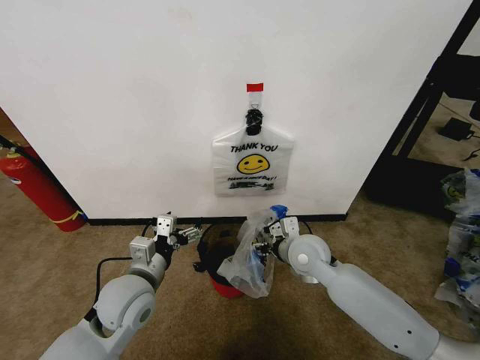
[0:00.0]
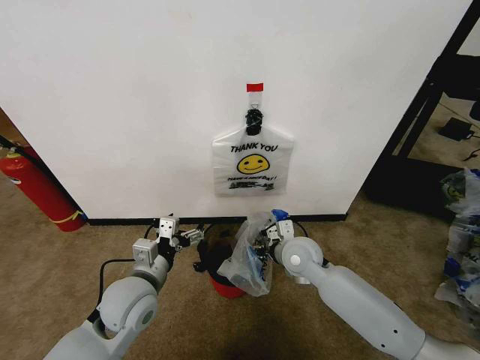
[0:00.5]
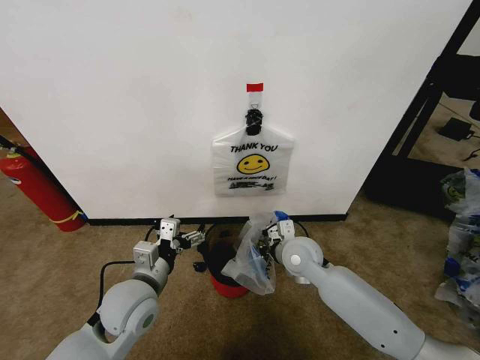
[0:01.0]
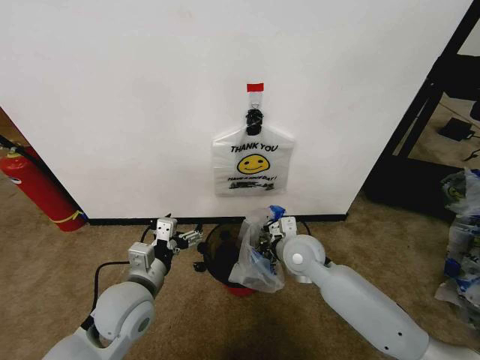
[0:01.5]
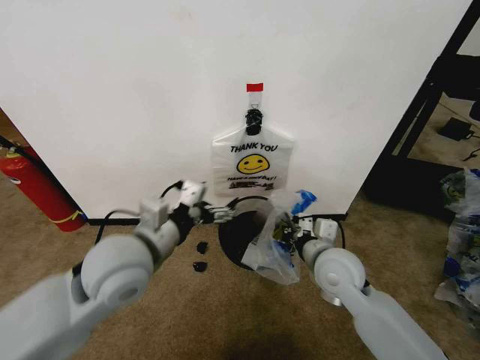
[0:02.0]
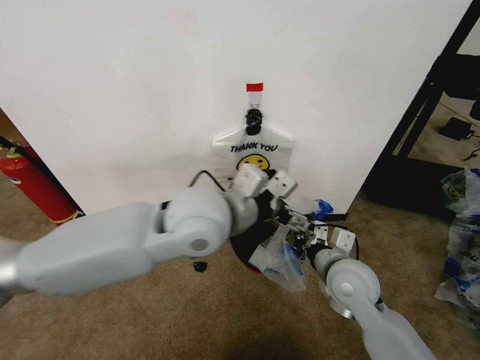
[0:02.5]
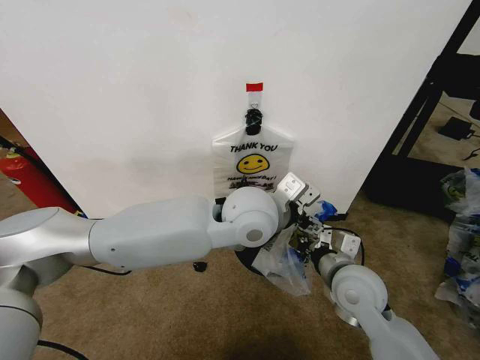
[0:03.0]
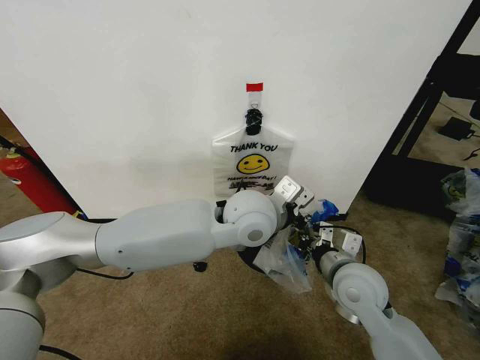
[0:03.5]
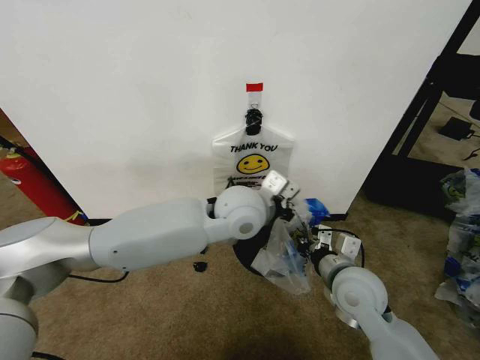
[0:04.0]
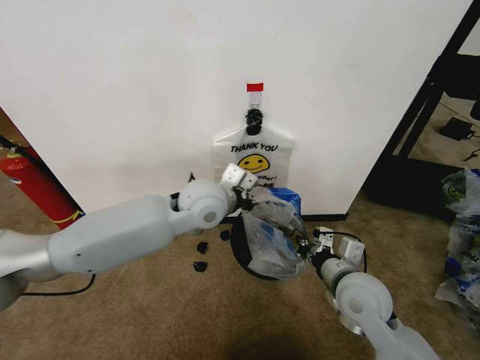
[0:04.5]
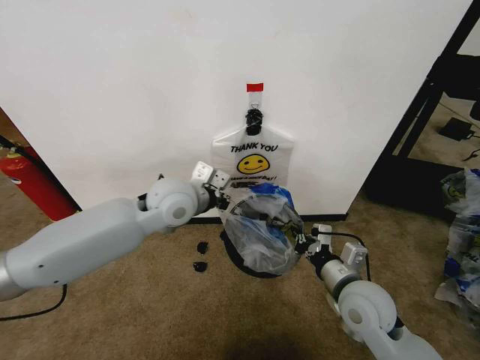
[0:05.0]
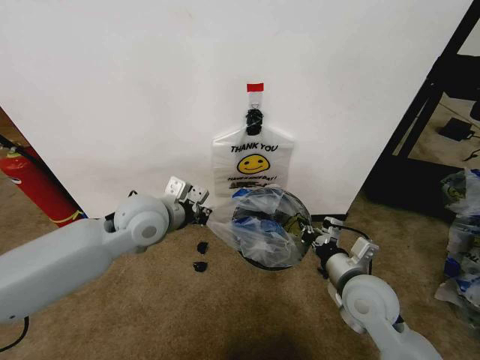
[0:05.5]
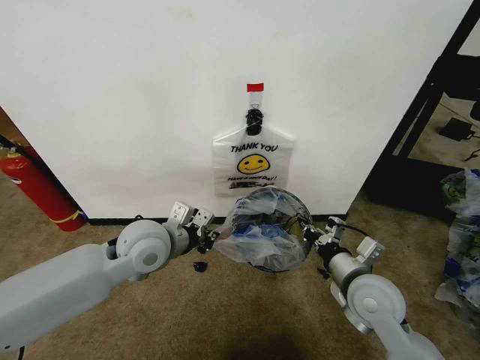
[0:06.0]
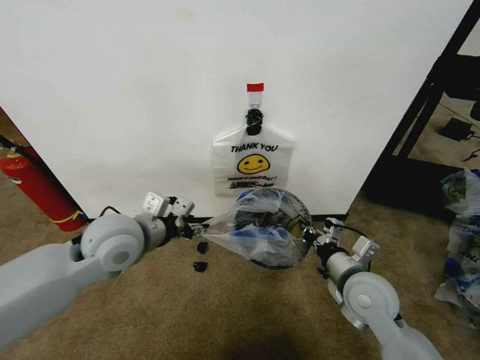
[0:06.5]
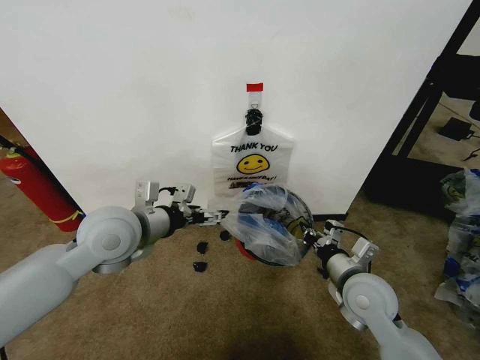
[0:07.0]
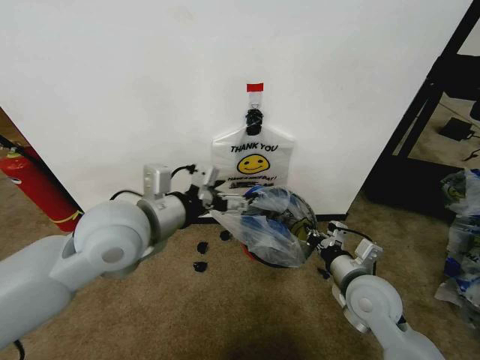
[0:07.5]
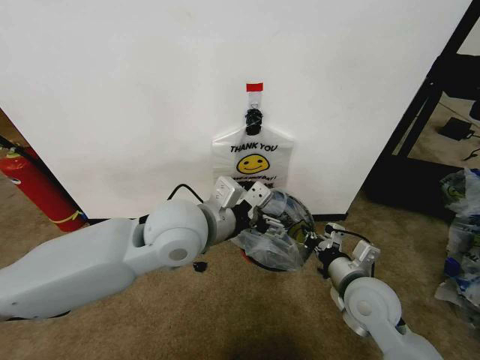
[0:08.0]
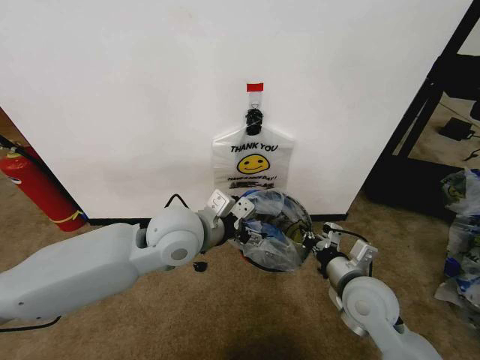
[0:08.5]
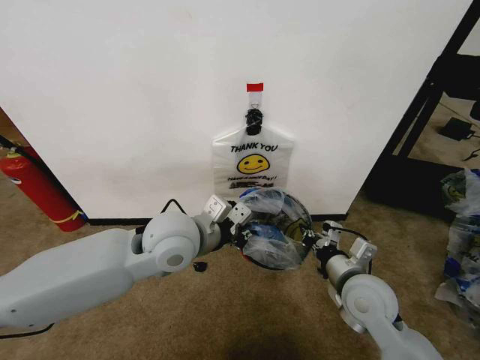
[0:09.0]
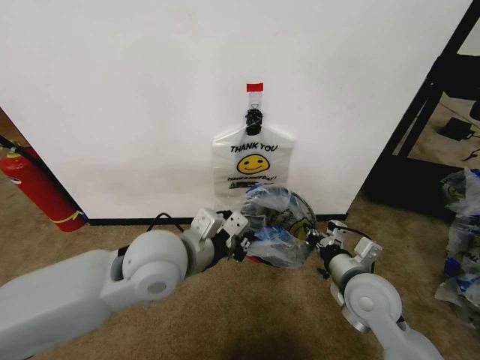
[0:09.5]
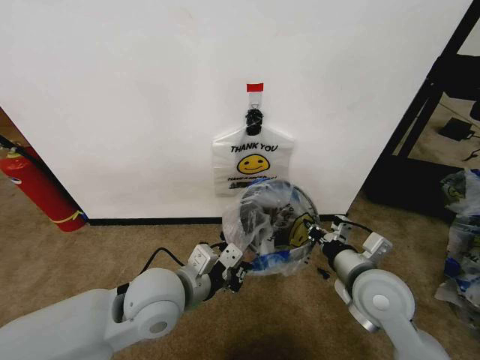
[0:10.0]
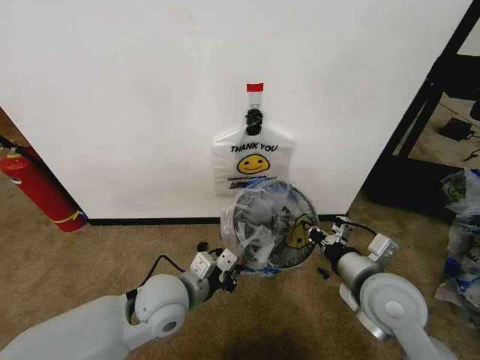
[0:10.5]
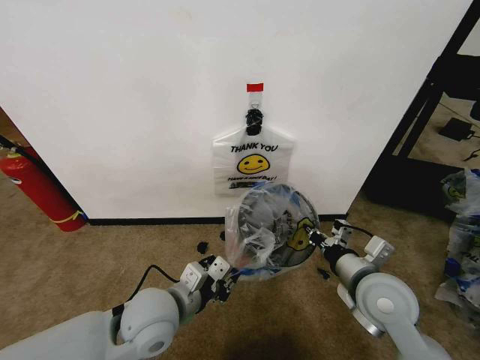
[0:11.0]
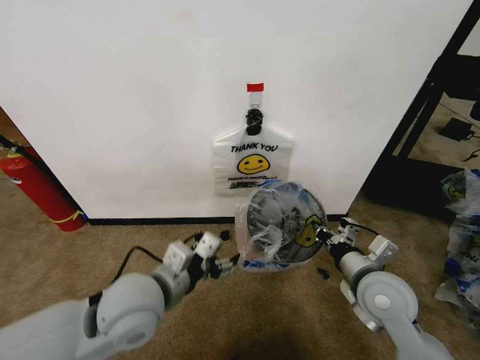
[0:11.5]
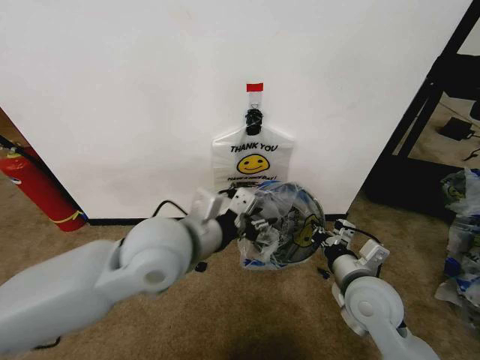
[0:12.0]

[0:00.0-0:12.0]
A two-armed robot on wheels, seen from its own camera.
Task of the whole recording: Pick up the garbage bag from the wall and place it over the trash bin.
0:00.0 to 0:02.0: The right gripper goes about 5 cm backward, and closes up. The left gripper heads upward, covering approximately 10 cm.
0:02.0 to 0:04.0: The left gripper shifts roughly 20 cm to the right and forward, and closes its fingers.
0:04.0 to 0:06.0: The left gripper shifts approximately 20 cm to the left.
0:06.0 to 0:08.0: The left gripper goes some 10 cm upward and to the right, and opens up.
0:08.0 to 0:10.0: The left gripper goes approximately 10 cm downward and backward, and closes up.
0:10.0 to 0:12.0: The left gripper goes about 10 cm upward, and opens.

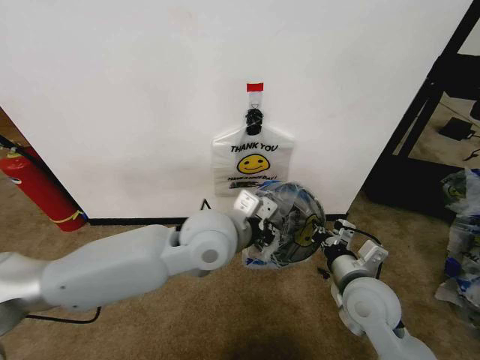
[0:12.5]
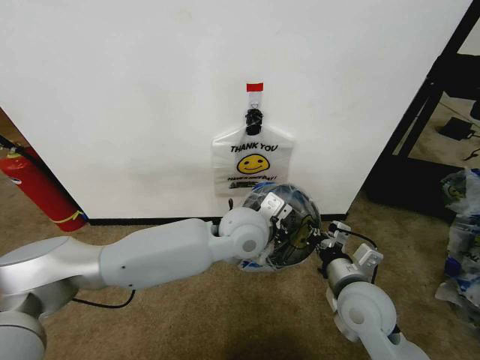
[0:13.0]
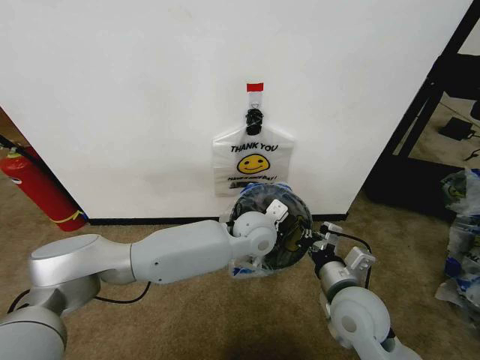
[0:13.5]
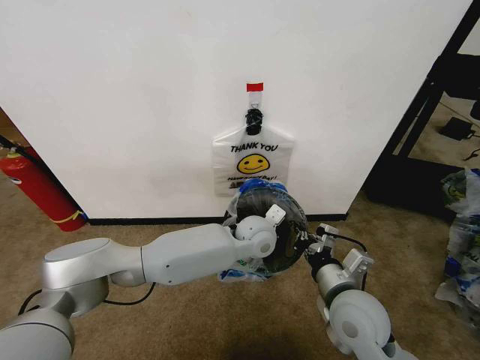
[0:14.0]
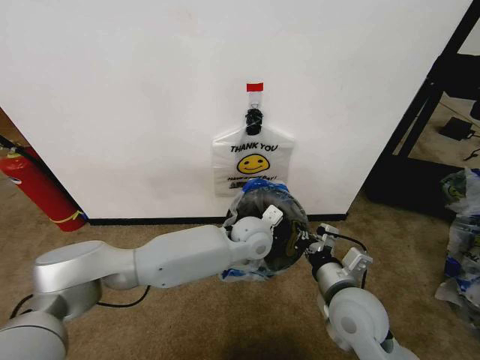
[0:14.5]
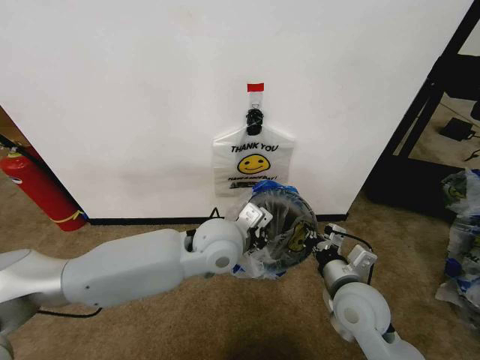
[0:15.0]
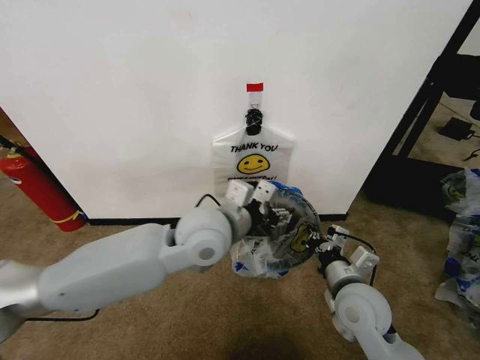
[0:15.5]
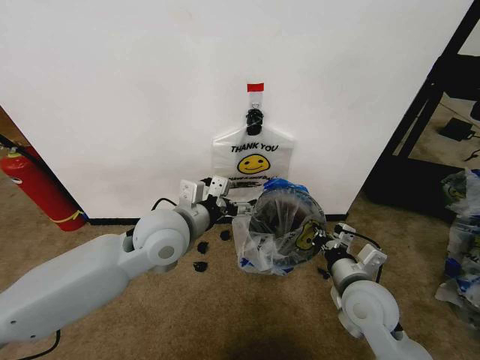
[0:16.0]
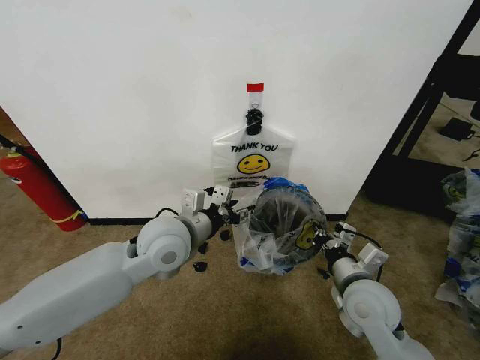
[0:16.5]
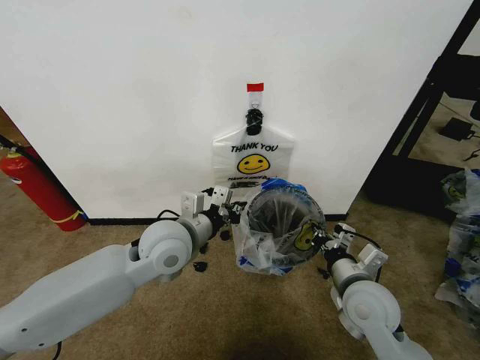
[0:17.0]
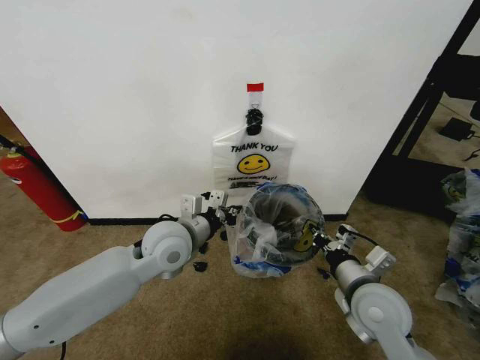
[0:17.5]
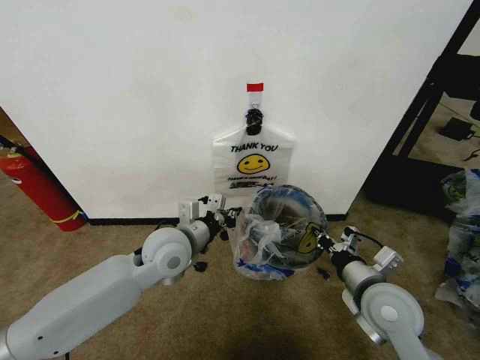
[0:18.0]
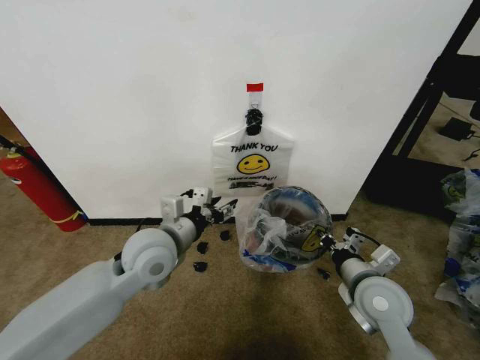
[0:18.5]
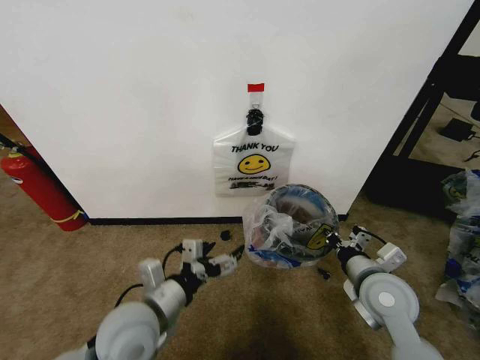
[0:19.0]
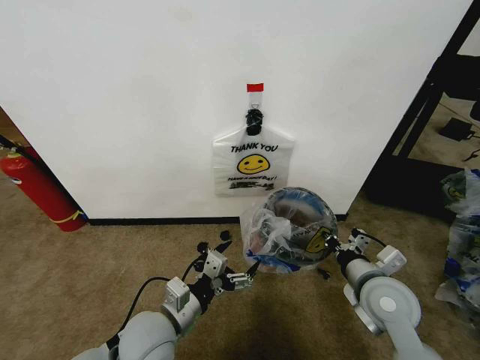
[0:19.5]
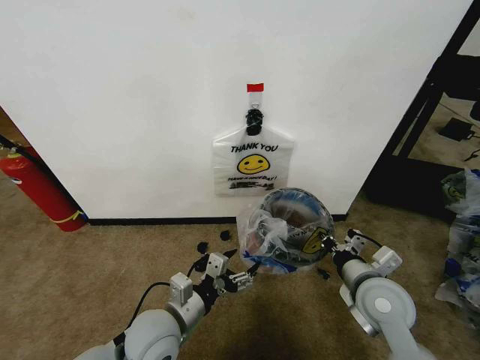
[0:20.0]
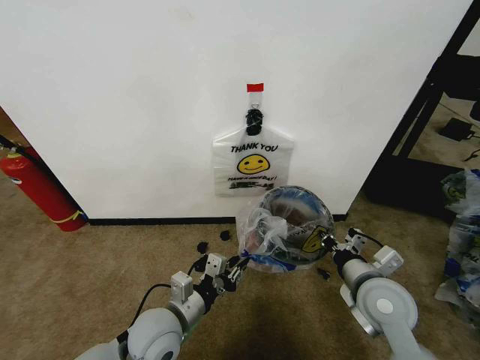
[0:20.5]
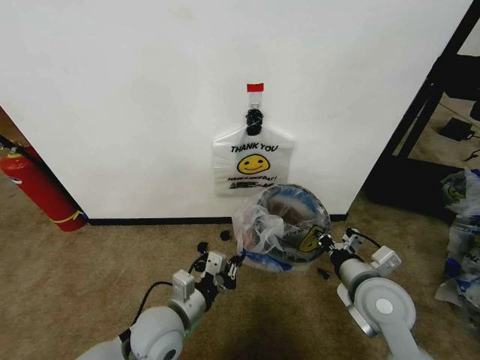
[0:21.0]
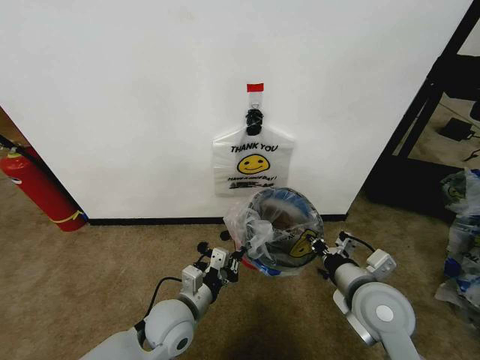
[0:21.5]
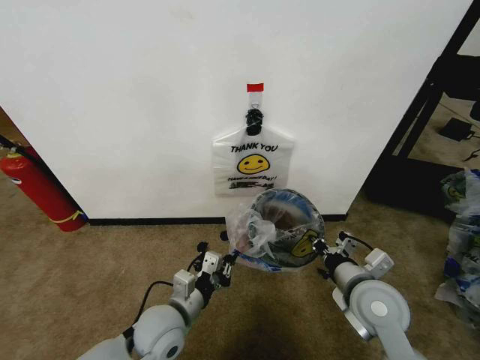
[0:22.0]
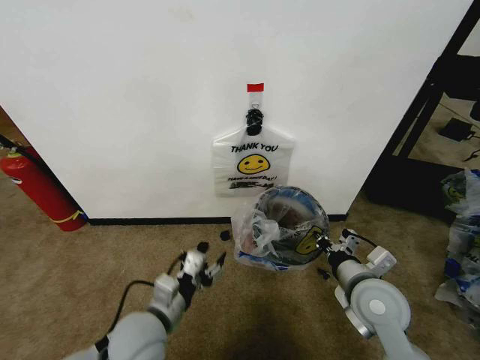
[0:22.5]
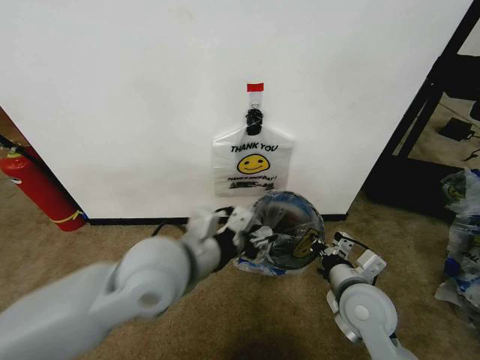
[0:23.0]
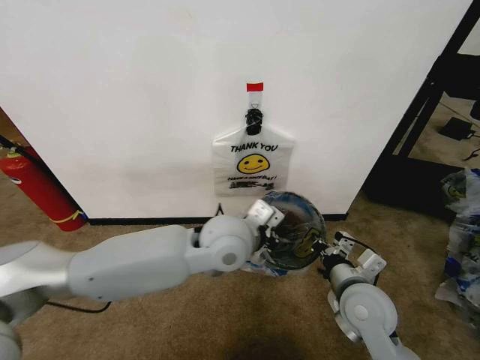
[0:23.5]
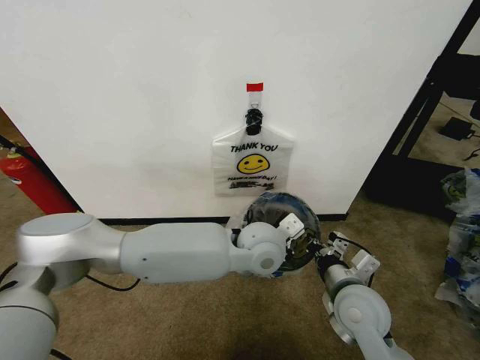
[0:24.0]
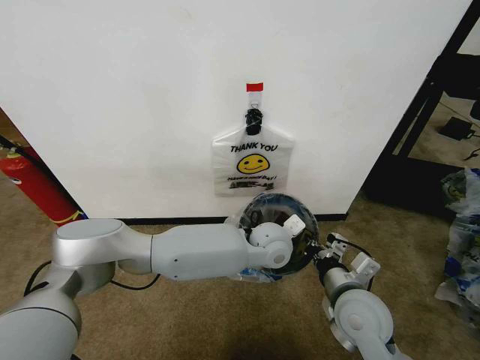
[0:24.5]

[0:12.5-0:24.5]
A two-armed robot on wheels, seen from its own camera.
Task of the whole recording: Pick up the garbage bag from the wall and place it over the trash bin.
0:12.5 to 0:14.5: The left gripper is displaced downward, forward and to the right by some 15 cm.
0:14.5 to 0:16.5: The left gripper heads to the left, upward and backward, covering roughly 20 cm, and opens its fingers.
0:16.5 to 0:18.5: The left gripper closes, then reopens.
0:18.5 to 0:20.5: The left gripper travels downward and backward by about 15 cm, and opens, then closes again.
0:20.5 to 0:22.5: The left gripper opens.
0:22.5 to 0:24.5: The left gripper goes roughly 30 cm to the right and forward, and closes up.

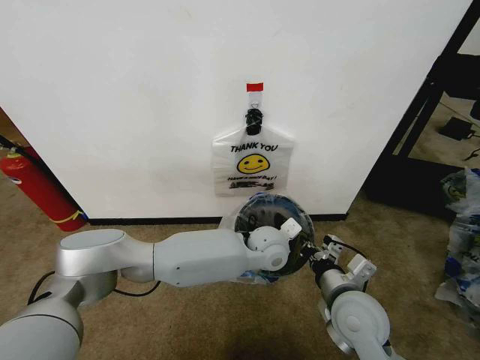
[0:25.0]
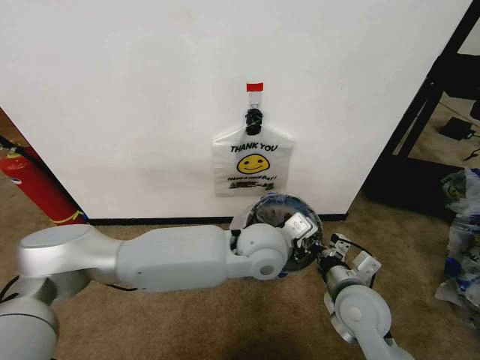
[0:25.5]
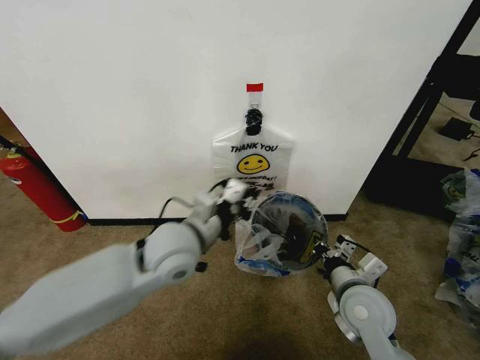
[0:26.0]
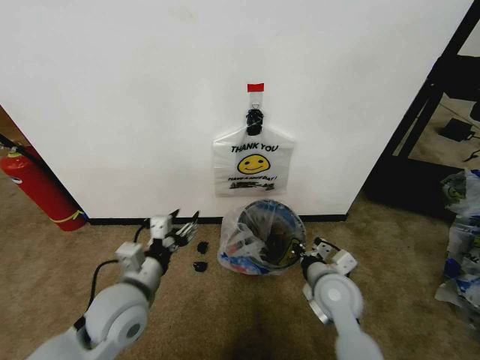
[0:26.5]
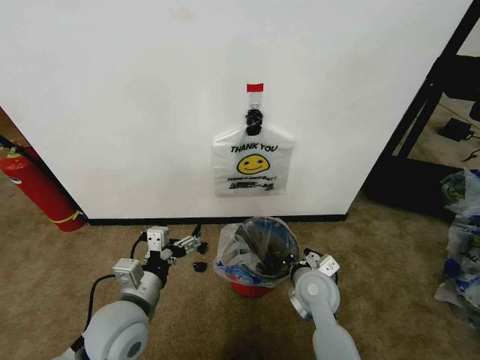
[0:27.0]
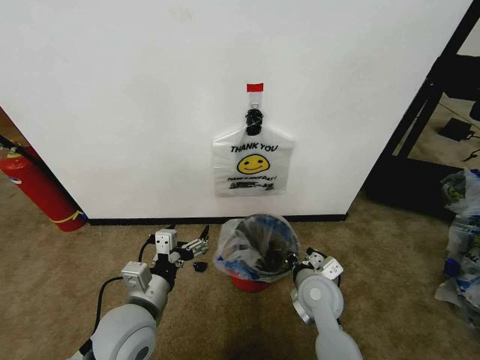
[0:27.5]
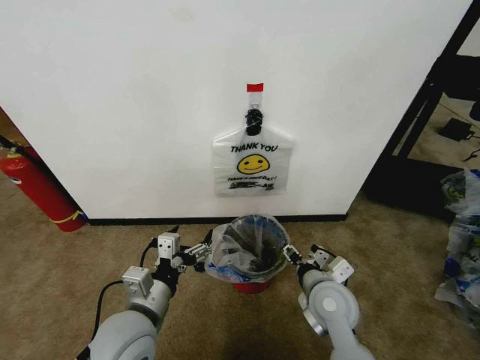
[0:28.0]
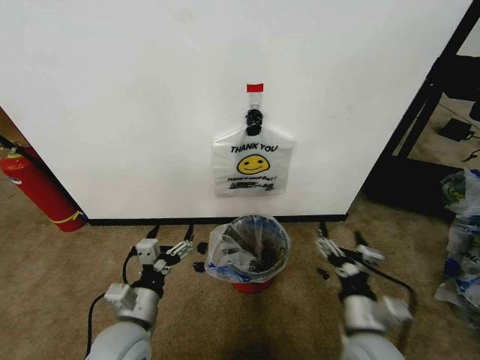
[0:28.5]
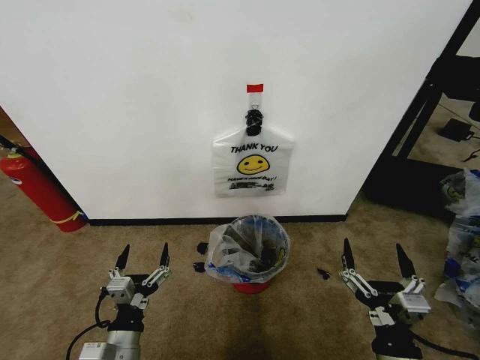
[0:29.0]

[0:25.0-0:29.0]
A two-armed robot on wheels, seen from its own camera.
Task of the whole recording: Pick up the garbage bag from the wall and place it over the trash bin.
0:25.0 to 0:27.0: The left gripper shifts some 30 cm to the left and backward, and opens up; the right gripper is displaced forward and downward by about 10 cm.
0:27.0 to 0:29.0: The left gripper shifts roughly 15 cm downward and backward; the right gripper heads backward, covering approximately 20 cm, and opens its fingers.
